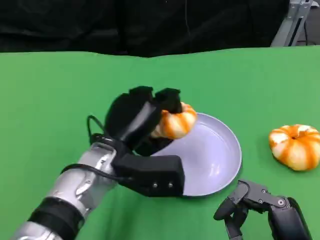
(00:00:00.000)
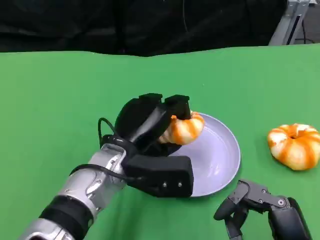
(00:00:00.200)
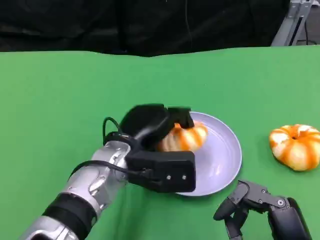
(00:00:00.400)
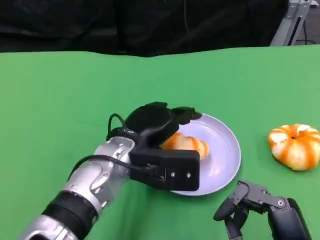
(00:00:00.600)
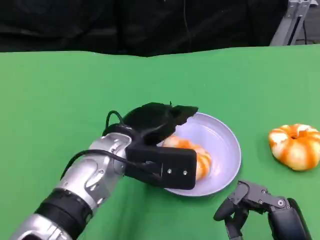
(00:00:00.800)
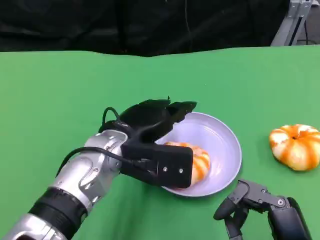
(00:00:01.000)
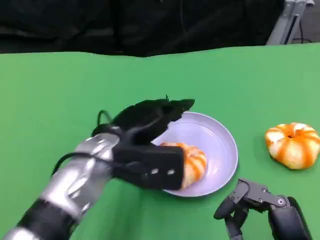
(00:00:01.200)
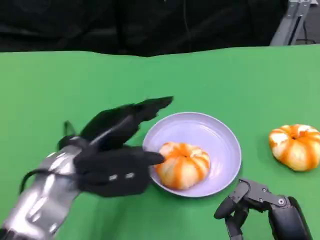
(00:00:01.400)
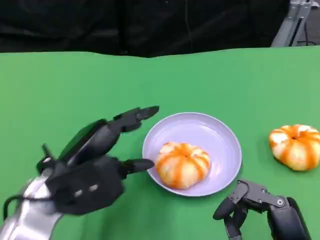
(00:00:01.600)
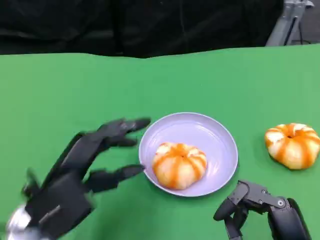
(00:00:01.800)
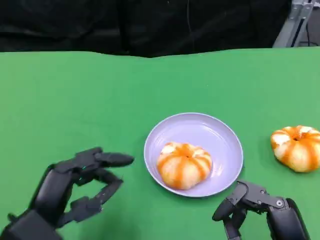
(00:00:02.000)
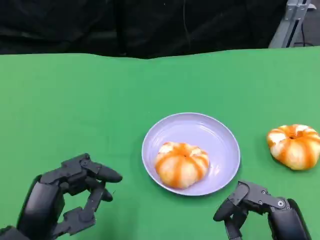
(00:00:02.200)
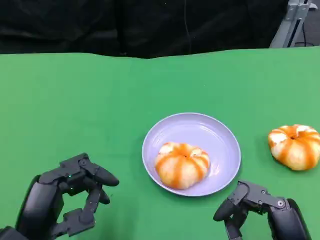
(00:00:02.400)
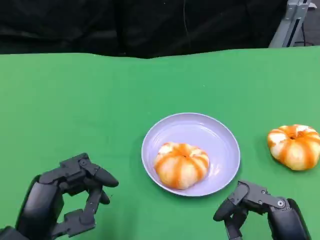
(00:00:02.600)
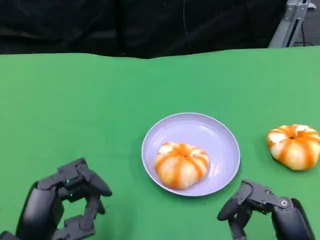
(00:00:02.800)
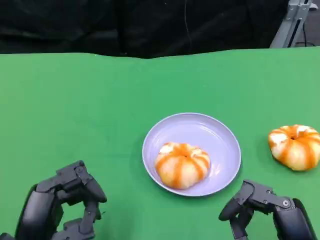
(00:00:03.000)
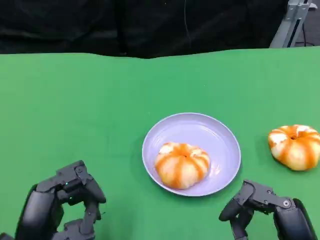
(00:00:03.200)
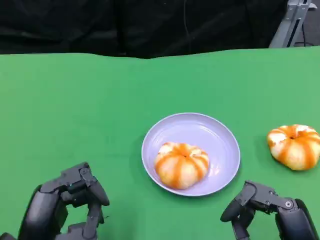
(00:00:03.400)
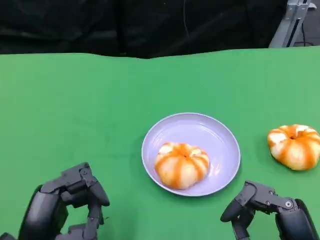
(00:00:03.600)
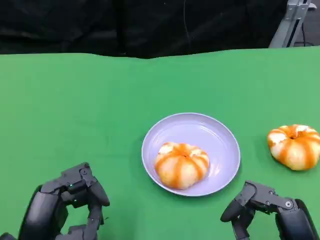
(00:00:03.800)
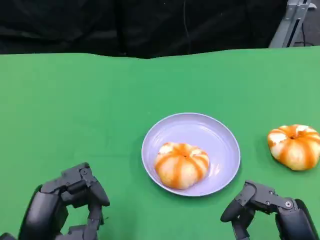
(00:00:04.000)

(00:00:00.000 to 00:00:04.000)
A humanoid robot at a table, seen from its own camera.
Task of the whole recording: Grasp the bread from the table and place it into the plate.
00:00:00.000 - 00:00:01.400: The left hand heads to the left, covering about 5 cm.
00:00:01.400 - 00:00:02.600: The left hand goes roughly 10 cm backward and to the left.
00:00:02.600 - 00:00:04.000: Neither hand changes place.

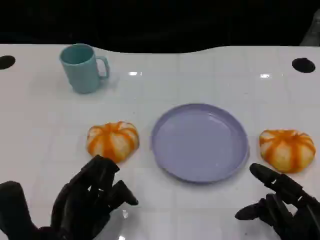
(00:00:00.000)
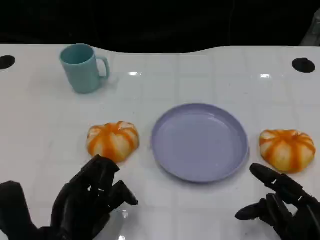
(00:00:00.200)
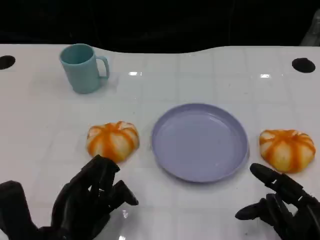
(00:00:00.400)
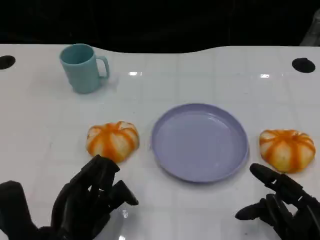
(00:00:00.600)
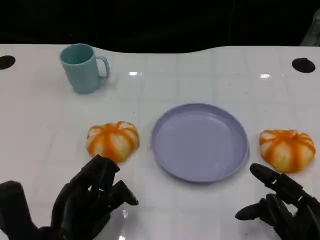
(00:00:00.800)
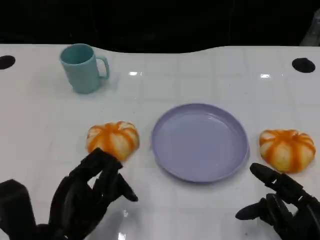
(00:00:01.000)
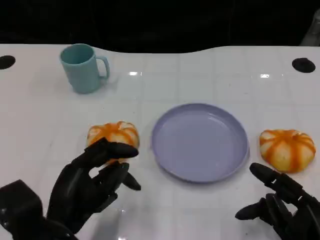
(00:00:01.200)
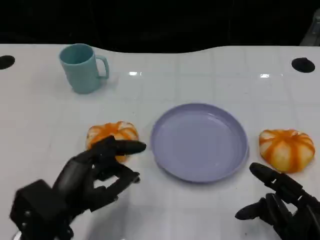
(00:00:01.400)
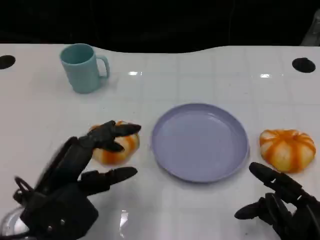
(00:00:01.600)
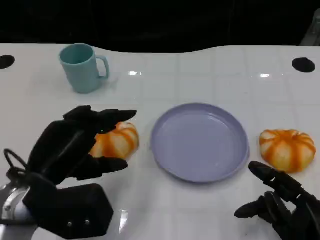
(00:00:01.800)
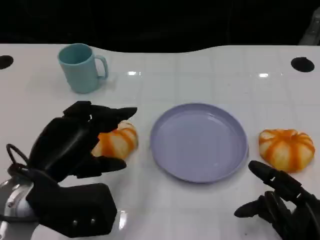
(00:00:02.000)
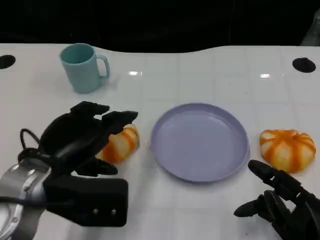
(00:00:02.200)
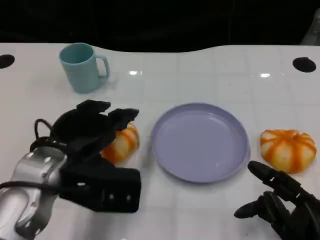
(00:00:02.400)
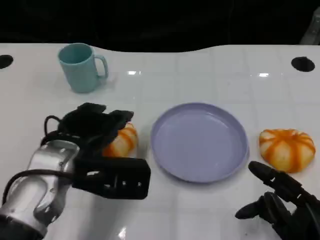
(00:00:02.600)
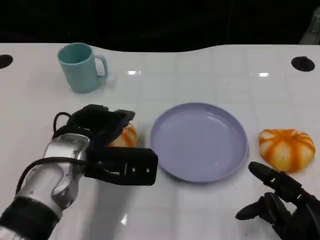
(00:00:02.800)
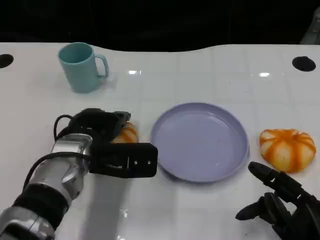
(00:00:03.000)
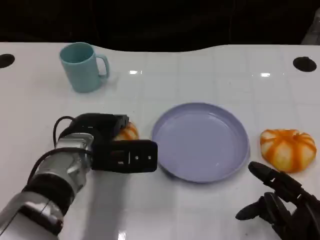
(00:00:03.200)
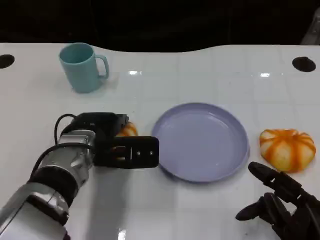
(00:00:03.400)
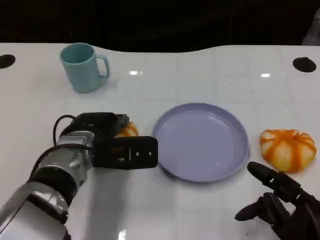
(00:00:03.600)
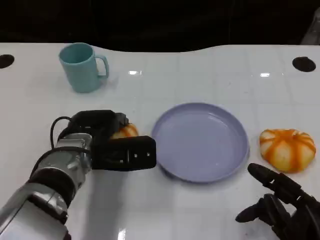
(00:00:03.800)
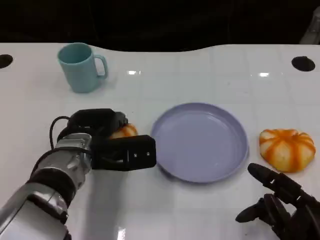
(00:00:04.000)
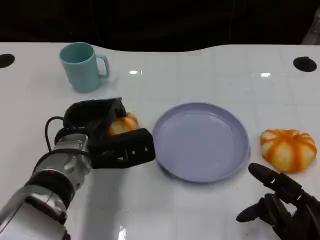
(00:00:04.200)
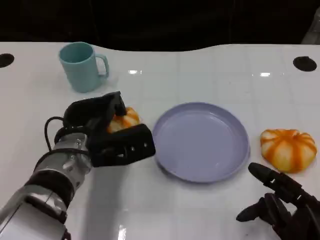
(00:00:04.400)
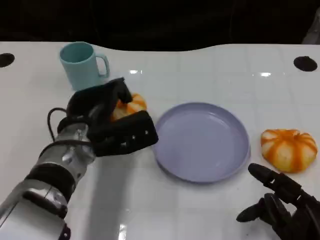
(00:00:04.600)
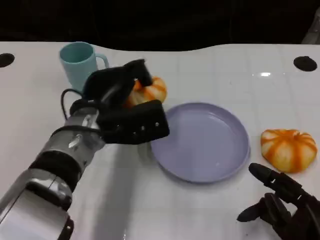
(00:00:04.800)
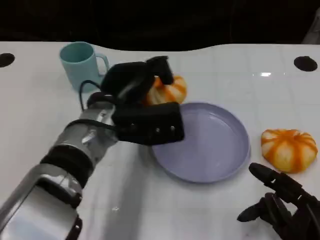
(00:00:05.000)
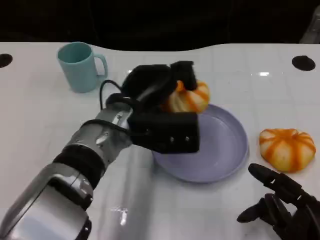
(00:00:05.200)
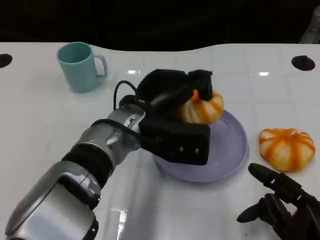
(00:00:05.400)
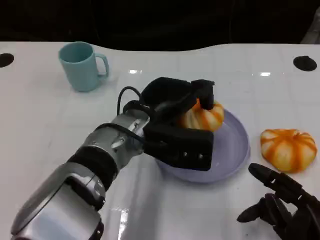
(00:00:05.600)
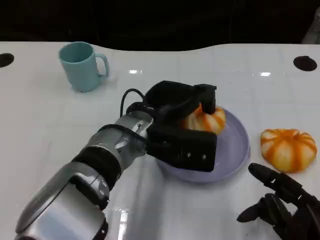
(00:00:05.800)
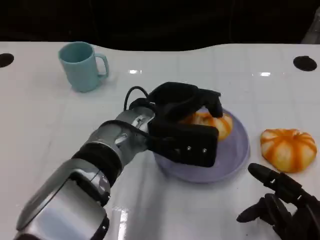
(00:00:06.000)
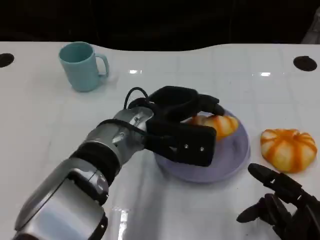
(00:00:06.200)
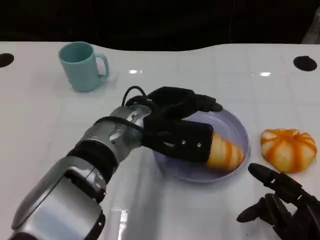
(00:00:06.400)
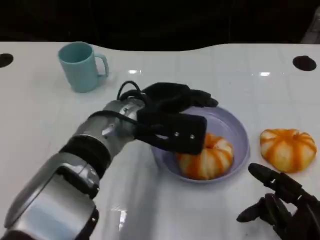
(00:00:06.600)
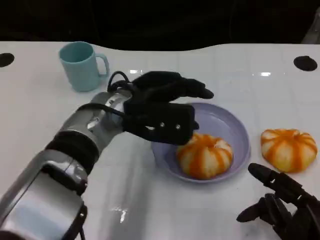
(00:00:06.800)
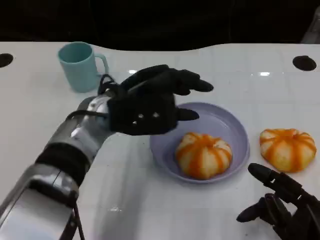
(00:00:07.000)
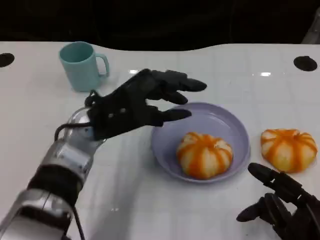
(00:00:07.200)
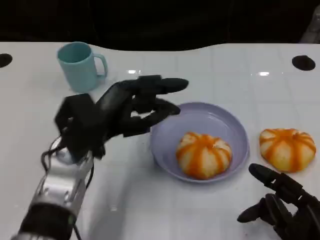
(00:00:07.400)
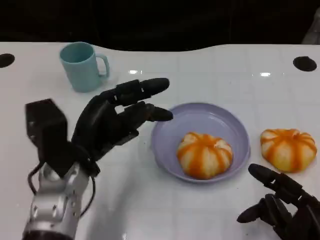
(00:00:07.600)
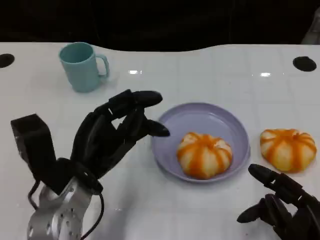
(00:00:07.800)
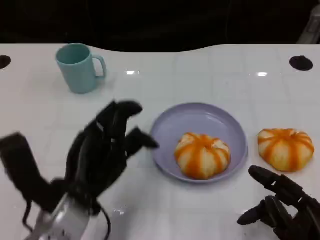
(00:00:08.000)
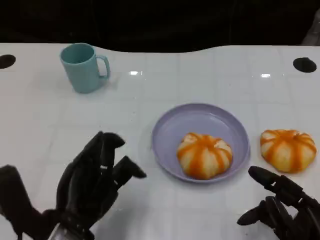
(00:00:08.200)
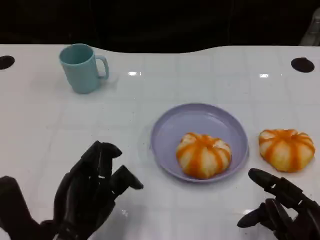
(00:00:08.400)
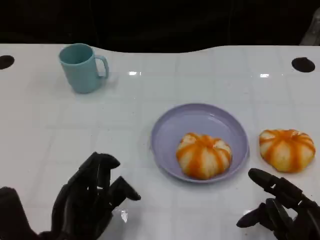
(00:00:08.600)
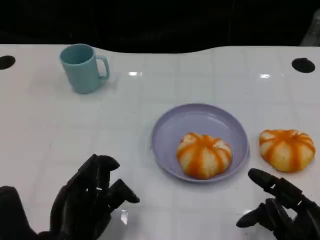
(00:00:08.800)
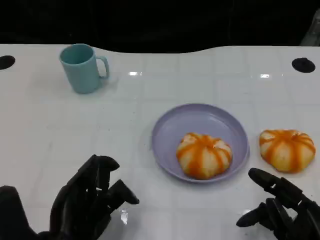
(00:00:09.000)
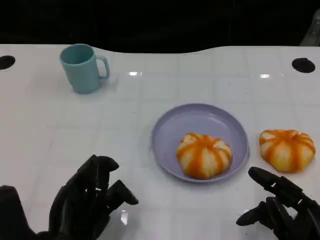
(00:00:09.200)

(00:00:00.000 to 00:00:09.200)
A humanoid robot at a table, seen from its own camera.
Task of the whole recording: Grasp the bread from the table and place it into the plate.
00:00:00.000 - 00:00:01.600: The left hand ends up some 5 cm from where it was.
00:00:01.600 - 00:00:03.000: The left hand shifts approximately 10 cm forward and to the right.
00:00:04.600 - 00:00:06.200: The left hand moves to the right, approximately 10 cm.
00:00:06.200 - 00:00:07.600: The left hand shifts about 10 cm to the left and backward.
00:00:07.600 - 00:00:09.200: The left hand heads backward, covering some 10 cm.

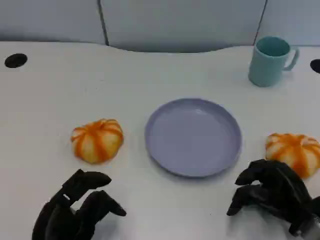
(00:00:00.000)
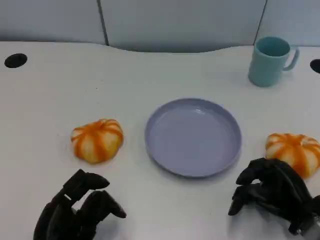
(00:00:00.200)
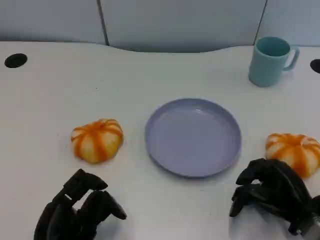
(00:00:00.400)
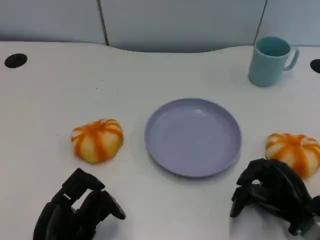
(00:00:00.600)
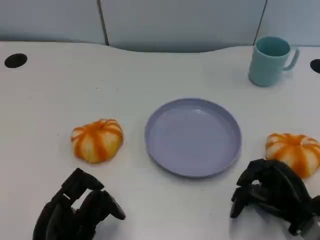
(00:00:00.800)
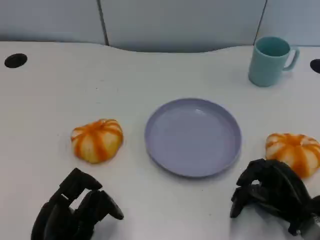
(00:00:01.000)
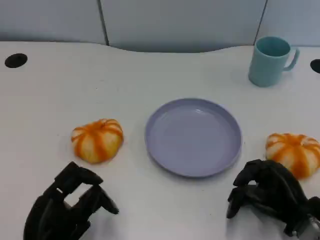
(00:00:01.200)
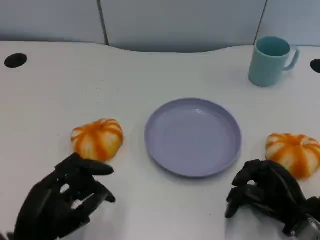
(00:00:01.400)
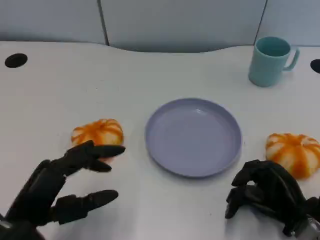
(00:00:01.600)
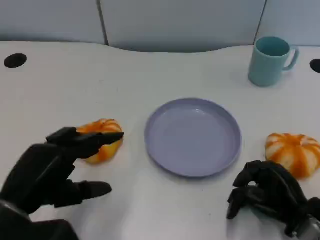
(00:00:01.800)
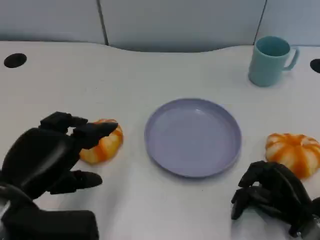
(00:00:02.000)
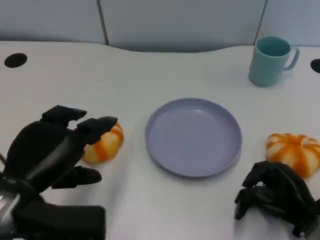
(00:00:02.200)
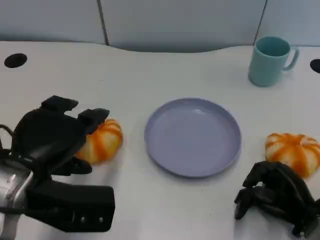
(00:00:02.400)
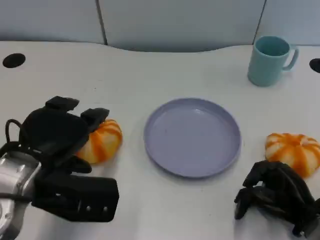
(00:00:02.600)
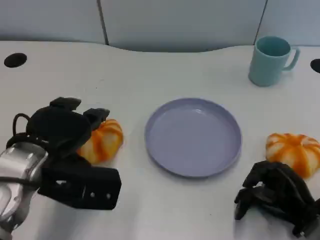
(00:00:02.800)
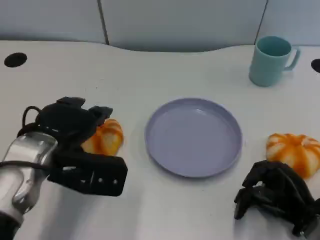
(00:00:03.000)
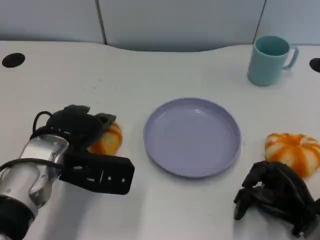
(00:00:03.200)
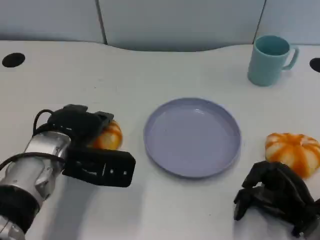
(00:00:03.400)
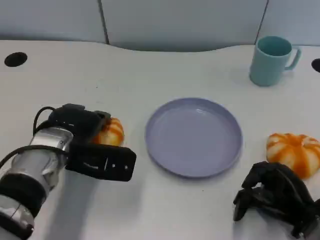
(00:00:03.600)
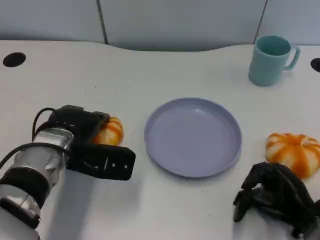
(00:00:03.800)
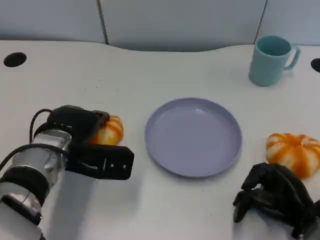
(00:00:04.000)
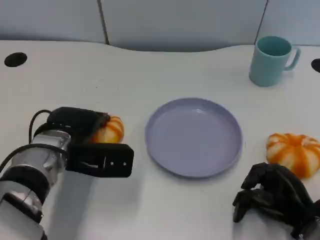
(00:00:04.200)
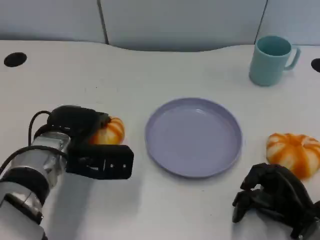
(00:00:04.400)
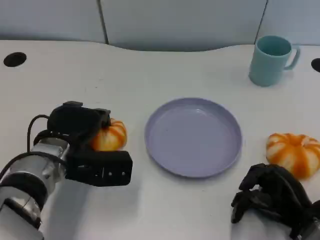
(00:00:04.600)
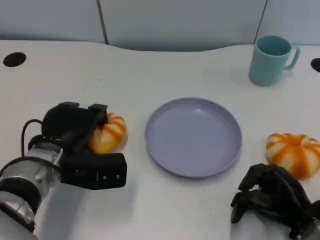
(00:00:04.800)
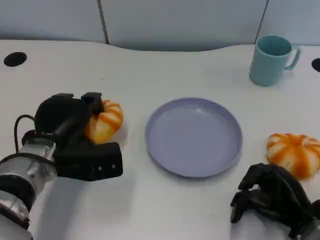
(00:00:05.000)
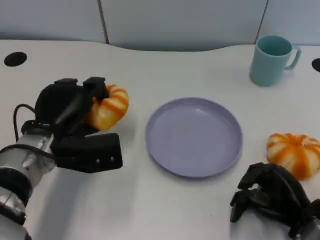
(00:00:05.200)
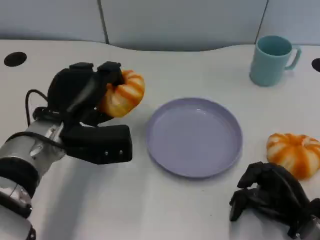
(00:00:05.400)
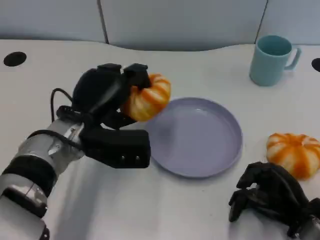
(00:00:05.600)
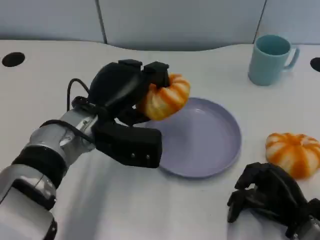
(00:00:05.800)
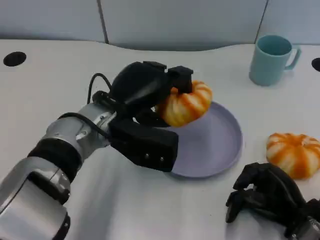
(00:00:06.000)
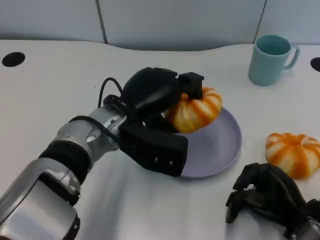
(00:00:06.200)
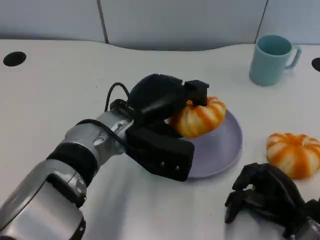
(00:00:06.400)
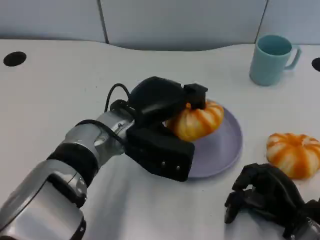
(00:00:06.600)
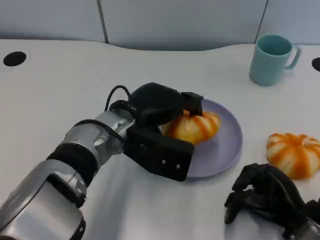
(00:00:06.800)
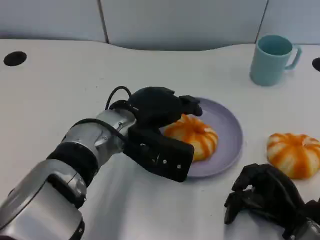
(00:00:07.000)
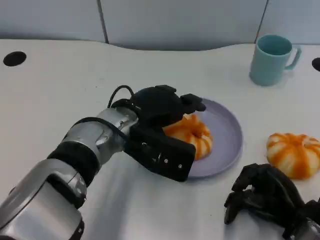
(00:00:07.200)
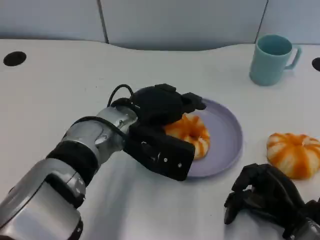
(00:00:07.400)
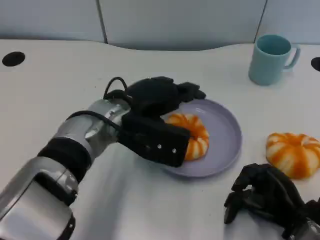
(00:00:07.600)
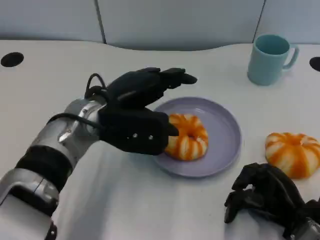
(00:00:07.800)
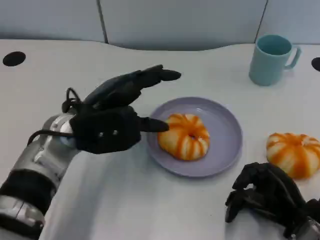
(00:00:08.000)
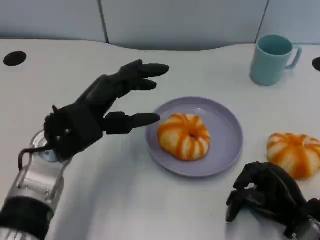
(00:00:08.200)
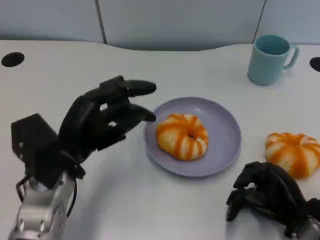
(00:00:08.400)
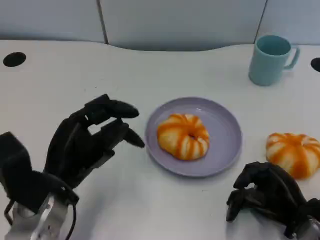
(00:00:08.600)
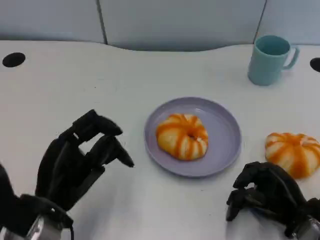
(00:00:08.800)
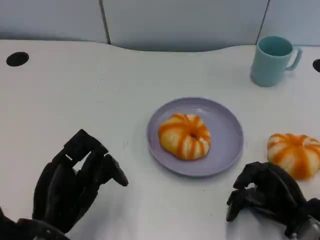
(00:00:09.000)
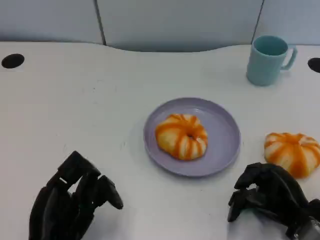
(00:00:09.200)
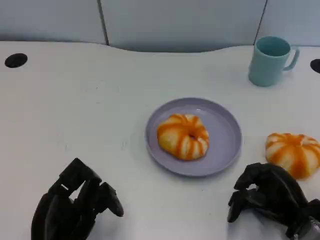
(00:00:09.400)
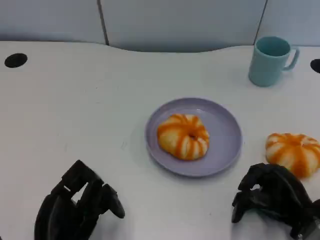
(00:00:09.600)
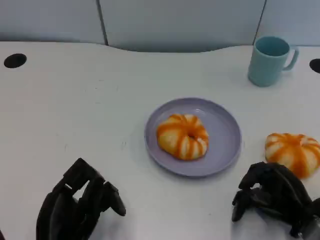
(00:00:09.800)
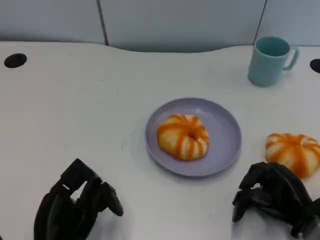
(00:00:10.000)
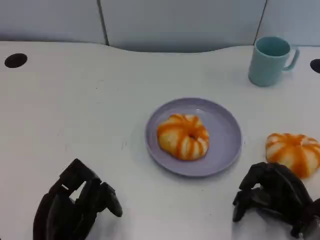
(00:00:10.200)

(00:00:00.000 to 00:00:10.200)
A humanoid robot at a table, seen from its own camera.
Task of the whole recording: Grasp the bread from the table and place it into the plate.
00:00:01.400 - 00:00:03.000: The left hand is displaced forward and upward by some 15 cm.
00:00:03.000 - 00:00:04.400: The left hand heads downward, covering approximately 5 cm.
00:00:04.400 - 00:00:05.800: The left hand travels to the right and upward by approximately 10 cm.
00:00:07.200 - 00:00:08.800: The left hand shifts approximately 20 cm backward and to the left.
00:00:08.800 - 00:00:10.200: The left hand moves roughly 5 cm.
